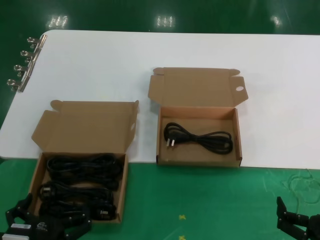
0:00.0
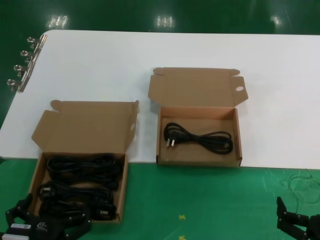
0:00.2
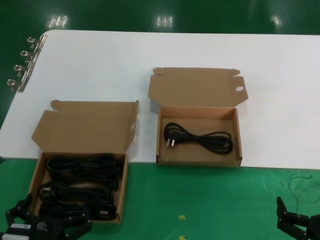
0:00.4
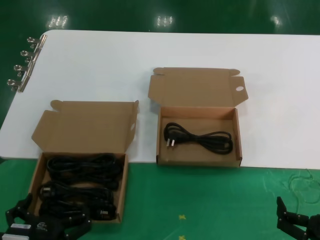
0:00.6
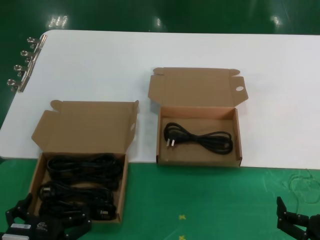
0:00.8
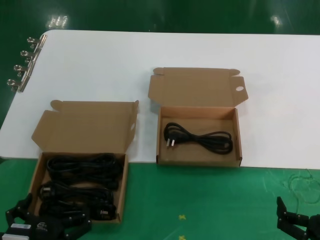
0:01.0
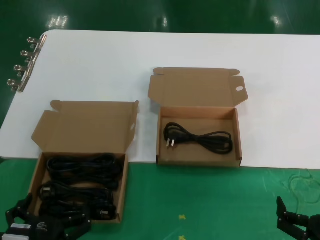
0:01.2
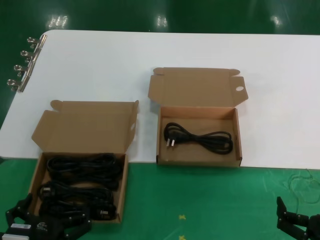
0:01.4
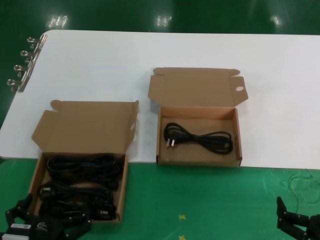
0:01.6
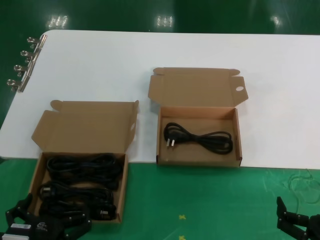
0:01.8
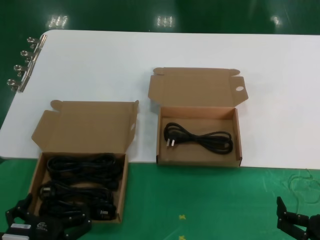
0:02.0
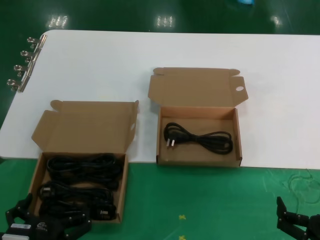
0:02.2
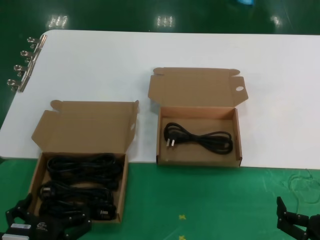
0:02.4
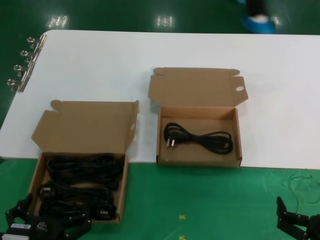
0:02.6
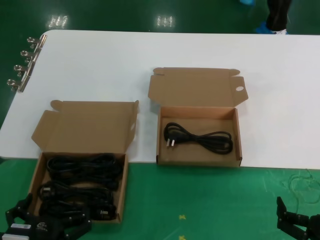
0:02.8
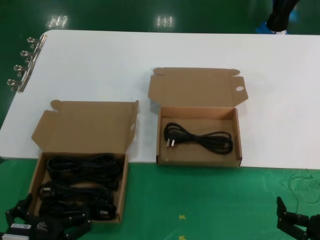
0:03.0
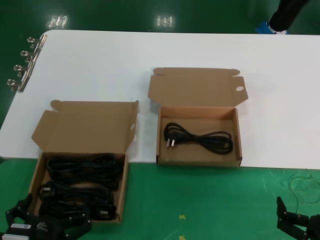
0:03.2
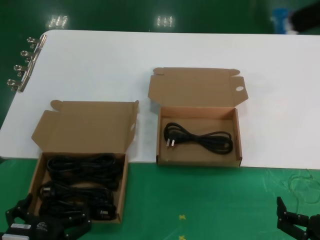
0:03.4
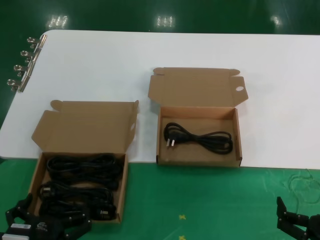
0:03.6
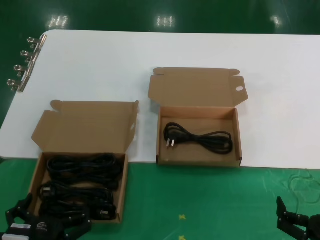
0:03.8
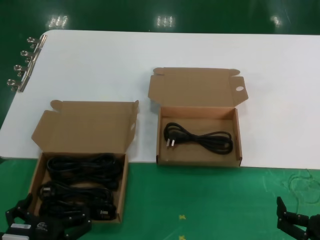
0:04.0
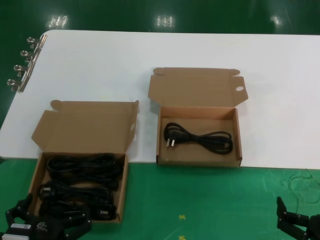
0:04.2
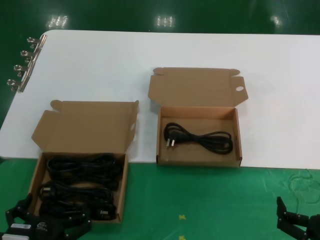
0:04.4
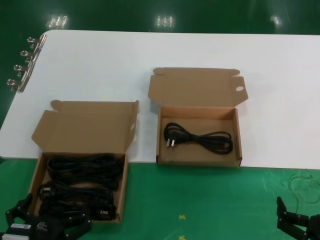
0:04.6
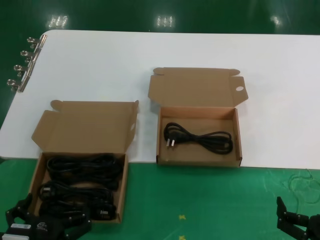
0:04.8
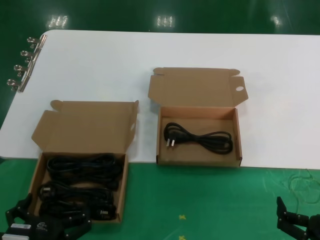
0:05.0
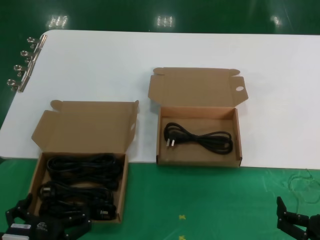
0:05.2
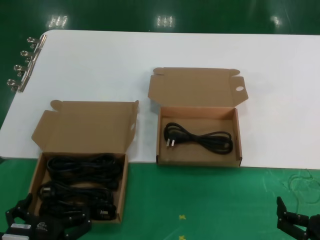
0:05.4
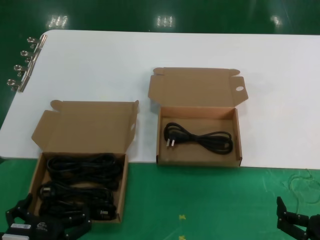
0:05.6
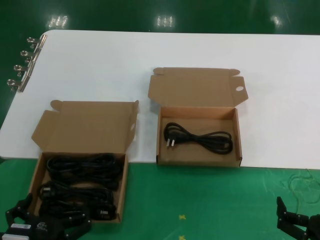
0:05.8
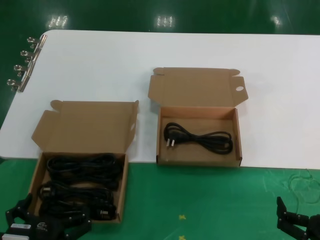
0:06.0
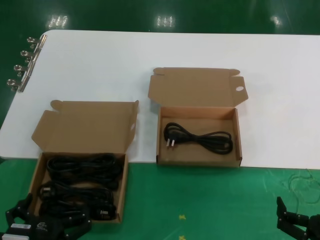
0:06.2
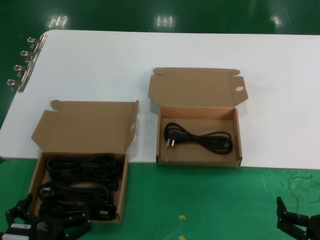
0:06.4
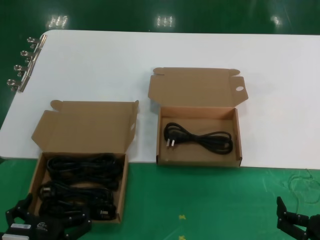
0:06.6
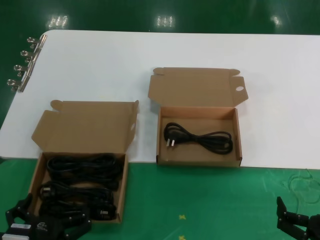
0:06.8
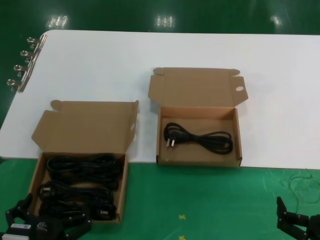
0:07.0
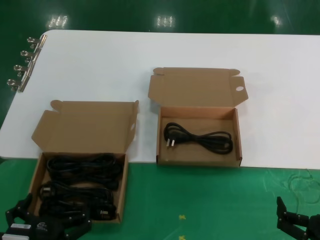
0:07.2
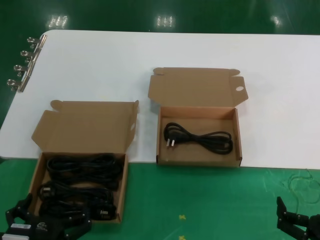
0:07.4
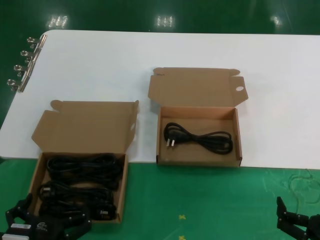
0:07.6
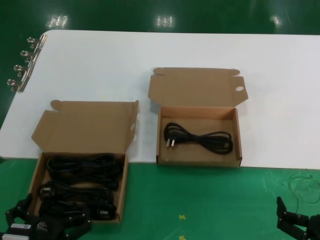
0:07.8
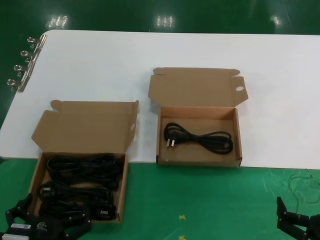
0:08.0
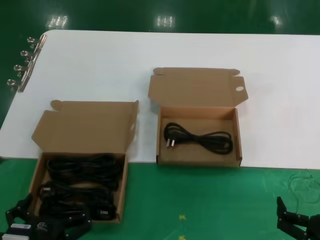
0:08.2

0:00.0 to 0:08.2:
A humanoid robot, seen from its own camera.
Task of the whole recording: take the parts from the box containing them and put them into an empty box.
0:00.0 to 0:08.2: Both hands stay put.
